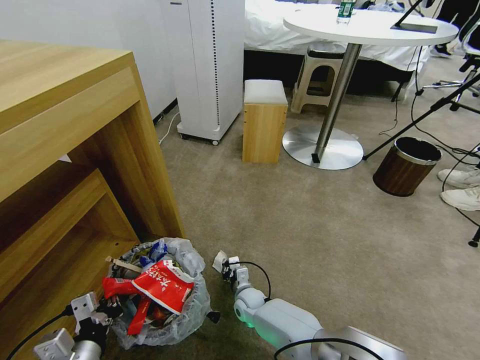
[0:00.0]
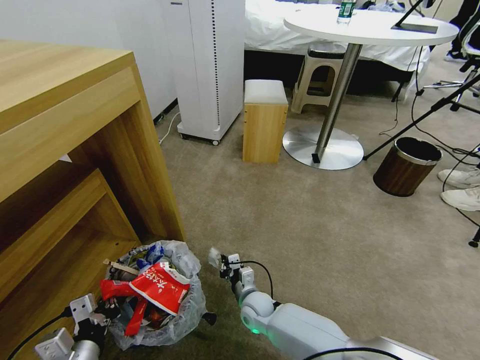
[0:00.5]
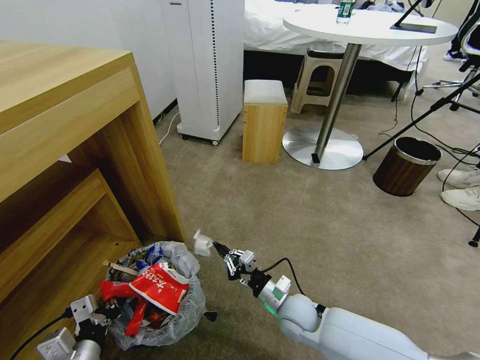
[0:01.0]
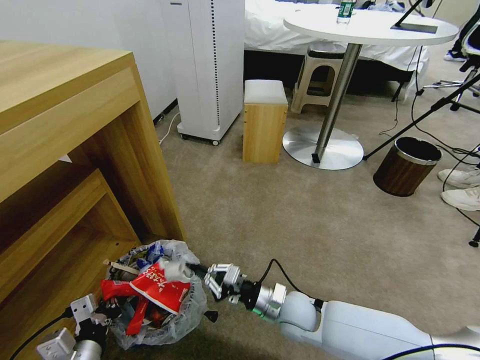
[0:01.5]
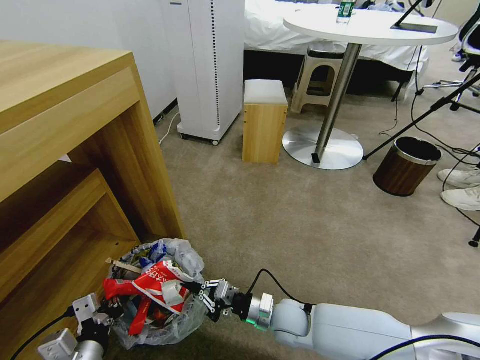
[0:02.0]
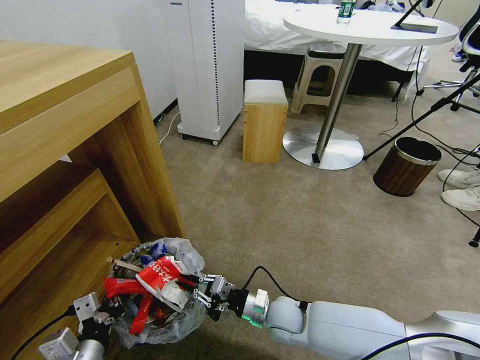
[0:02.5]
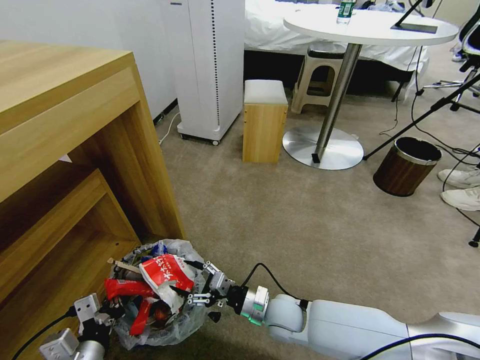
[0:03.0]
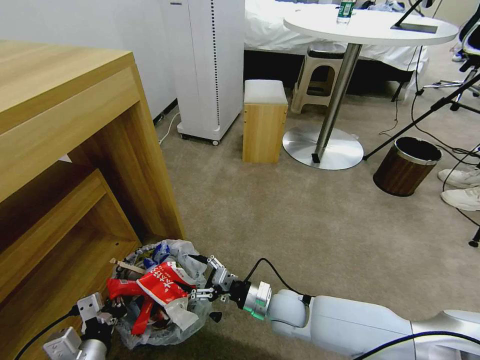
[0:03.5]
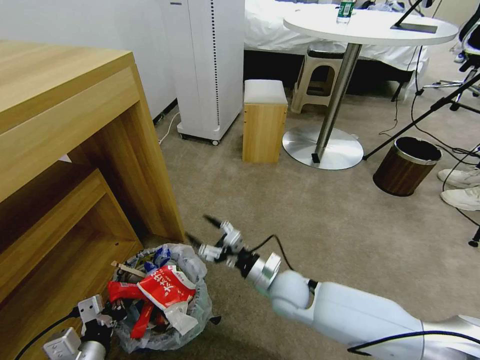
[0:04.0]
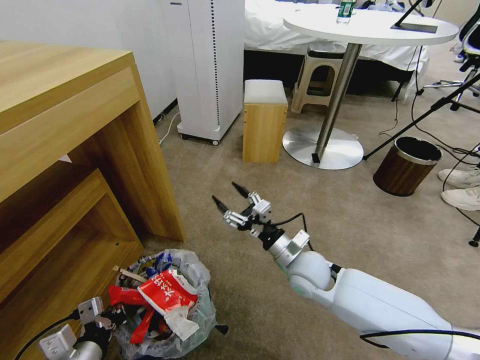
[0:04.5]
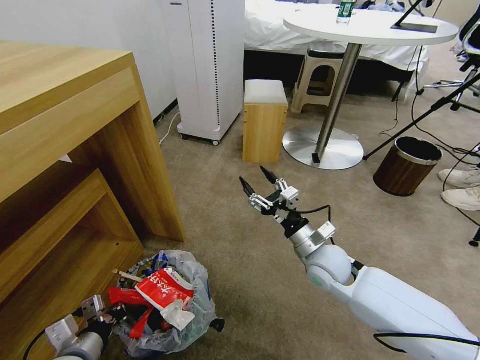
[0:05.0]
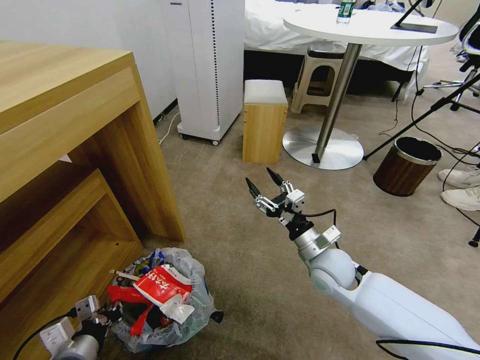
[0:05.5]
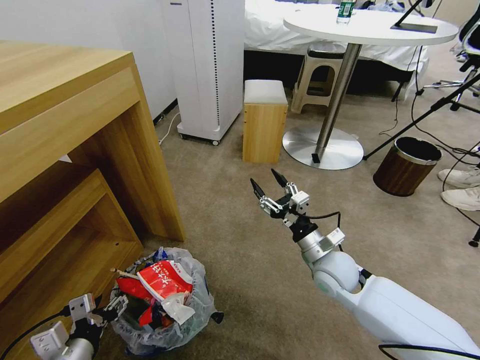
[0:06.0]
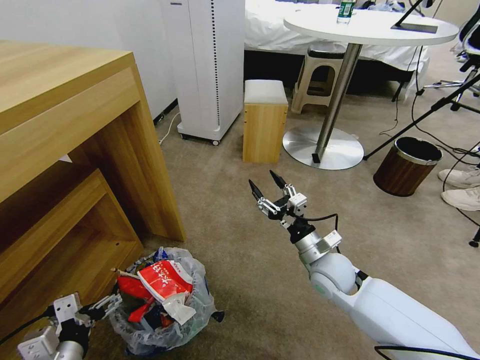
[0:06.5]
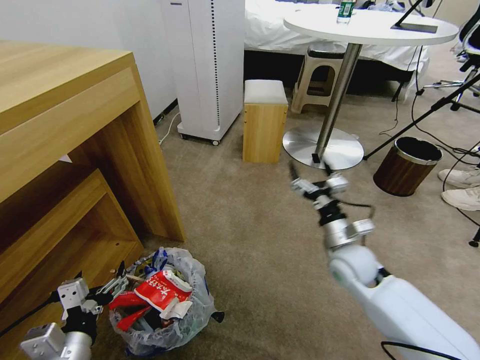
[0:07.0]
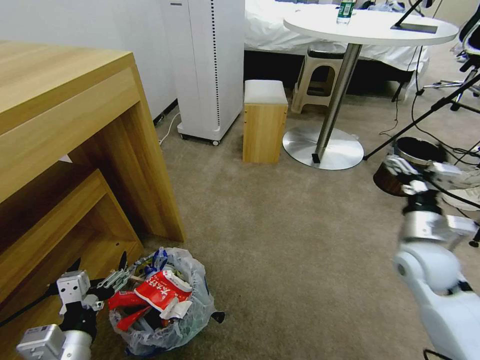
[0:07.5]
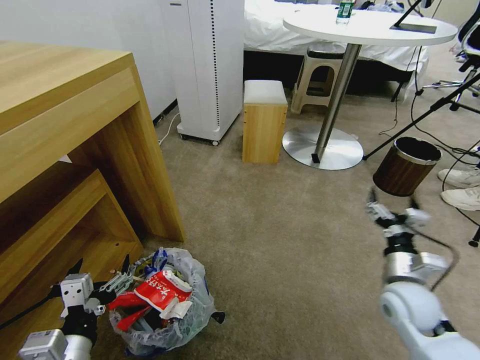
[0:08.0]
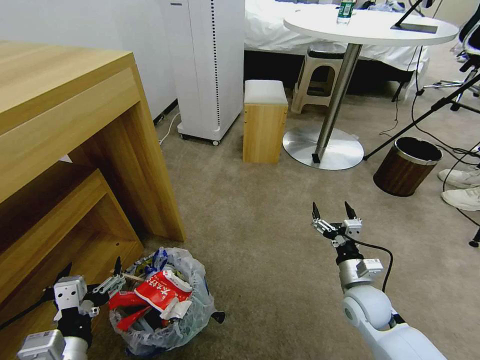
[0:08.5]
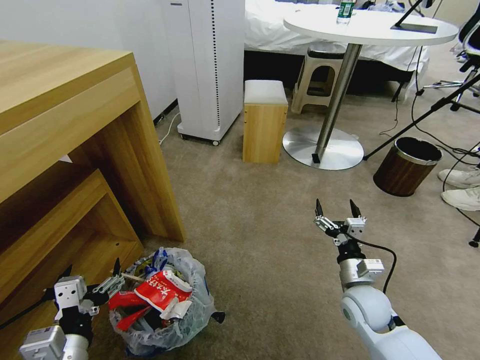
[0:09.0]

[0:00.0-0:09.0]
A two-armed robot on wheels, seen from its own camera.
Task of the whole recording: Pick up the trash bin and place the garbage on the floor into it.
0:00.0 to 0:02.0: The right gripper goes roughly 15 cm upward, to the right and backward.
0:02.0 to 0:04.5: The right gripper moves upward and forward, some 15 cm, and opens.
0:04.5 to 0:07.0: The left gripper opens; the right gripper goes roughly 10 cm to the right.
0:07.0 to 0:09.0: The right gripper shifts roughly 10 cm backward and downward.
